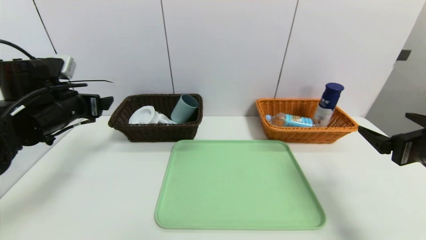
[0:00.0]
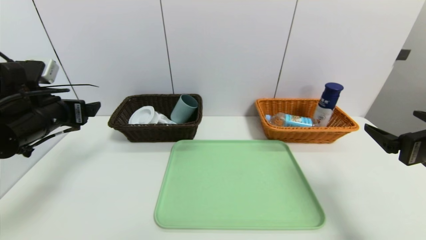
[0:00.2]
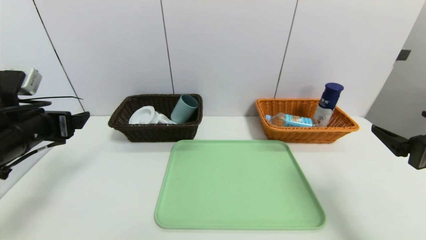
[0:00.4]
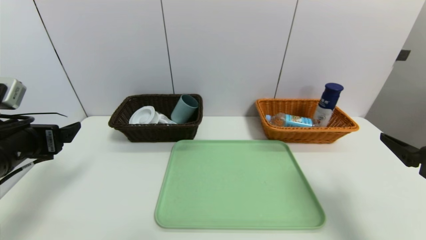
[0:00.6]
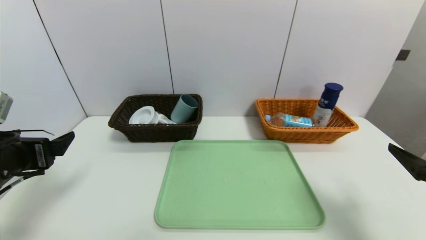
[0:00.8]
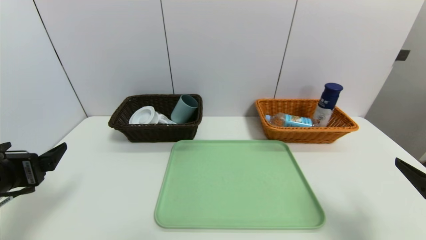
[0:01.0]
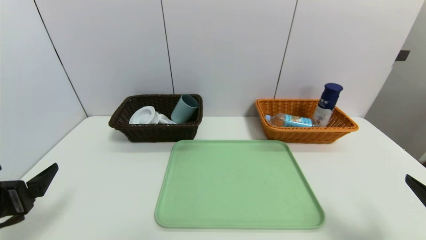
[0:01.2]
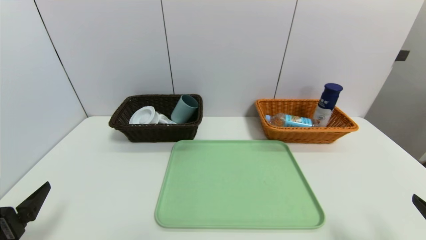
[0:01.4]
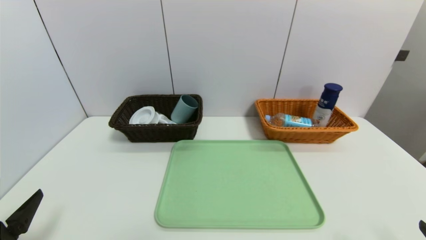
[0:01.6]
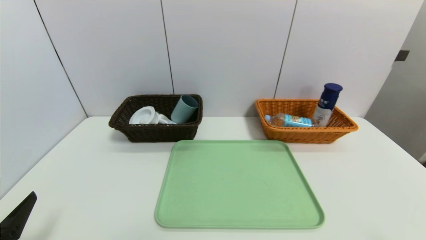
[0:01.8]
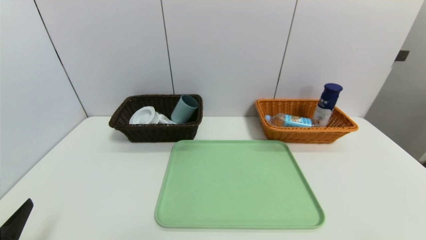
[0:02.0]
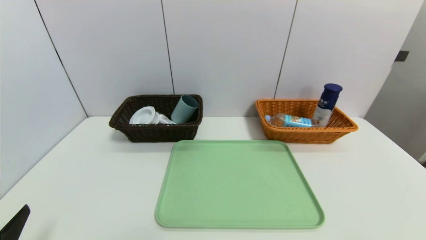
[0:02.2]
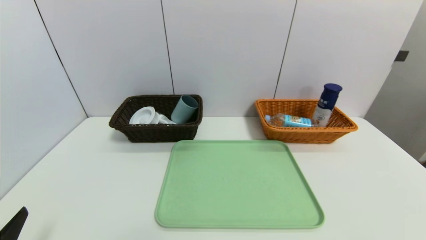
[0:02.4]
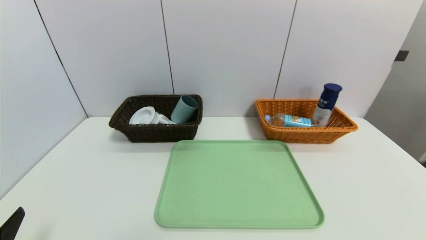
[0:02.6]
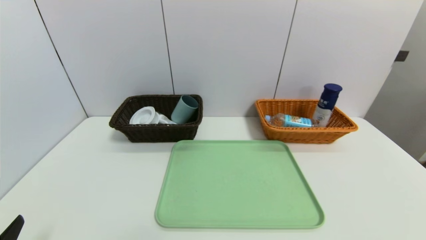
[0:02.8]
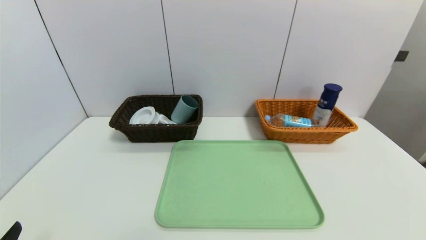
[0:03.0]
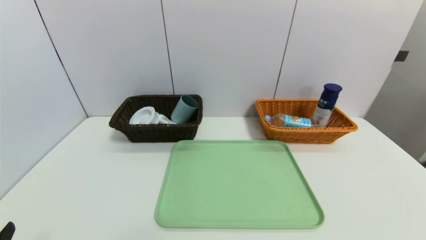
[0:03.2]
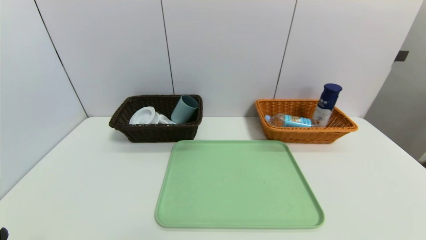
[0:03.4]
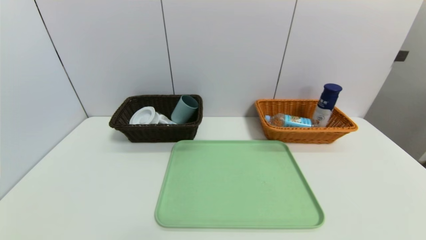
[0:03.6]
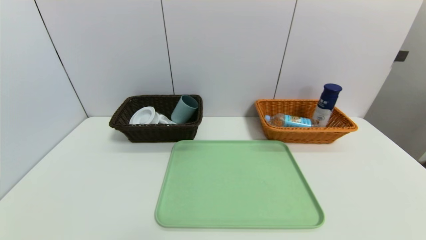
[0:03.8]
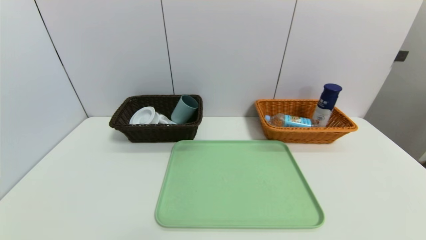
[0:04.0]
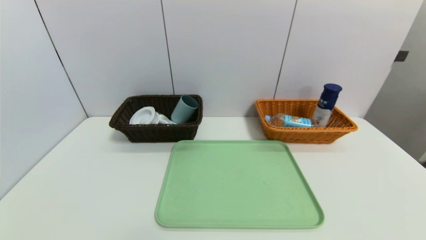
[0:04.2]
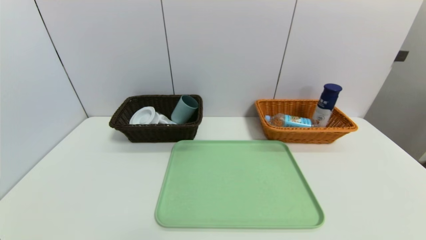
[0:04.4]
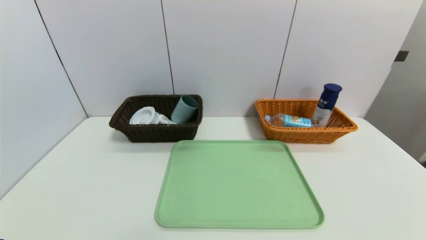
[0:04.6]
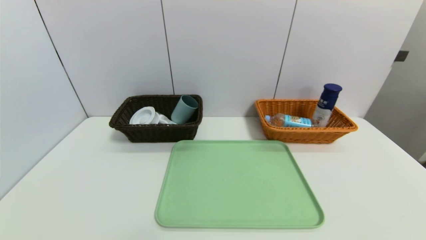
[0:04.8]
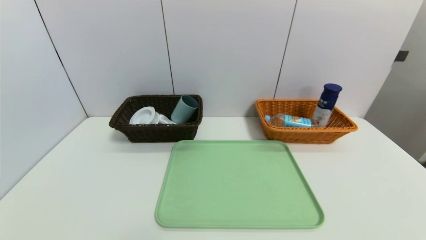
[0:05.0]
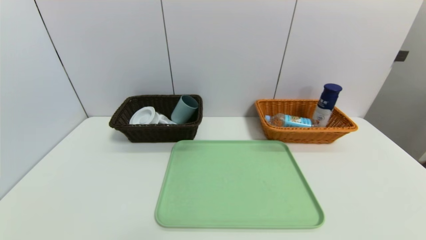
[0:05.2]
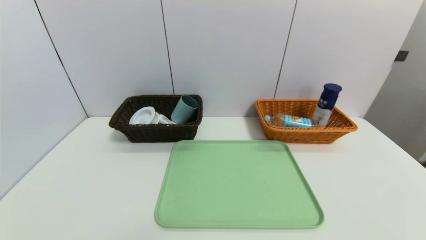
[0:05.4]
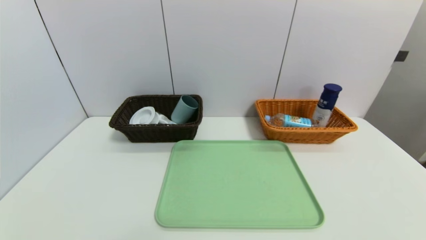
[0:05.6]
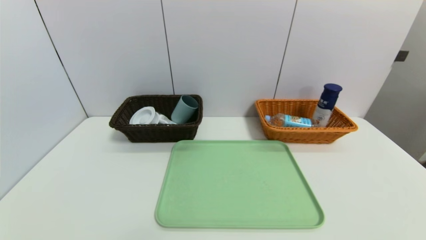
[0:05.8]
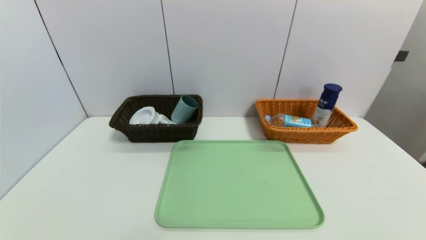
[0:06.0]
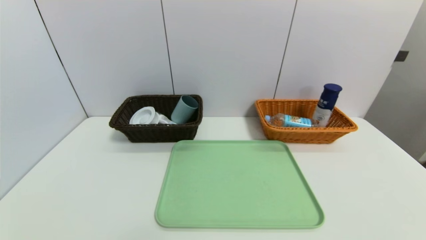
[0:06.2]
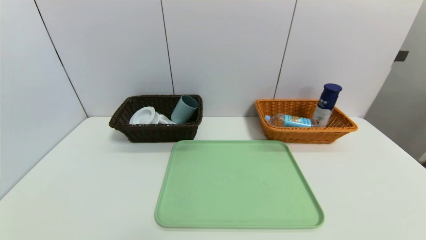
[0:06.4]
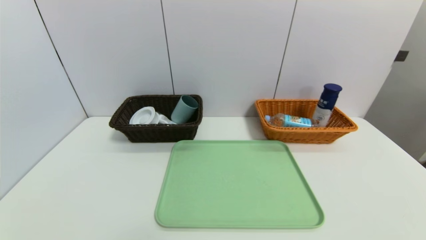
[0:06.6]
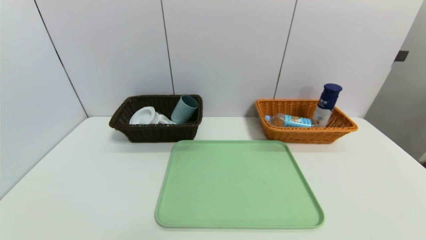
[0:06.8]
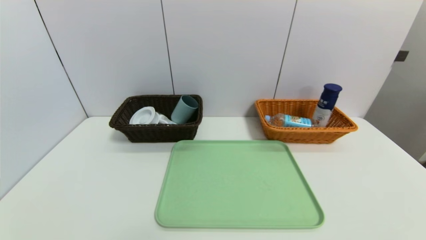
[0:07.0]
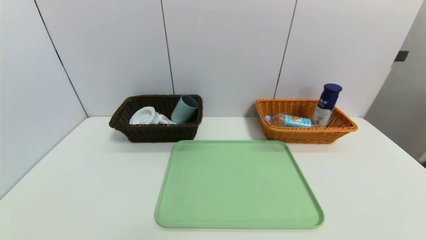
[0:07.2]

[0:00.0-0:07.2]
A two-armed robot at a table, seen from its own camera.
Task of the whole recording: place the food in the right basket with the right gripper, and place the non food items in the left basket with the left gripper.
0:00.0 to 0:01.4: The left gripper shifts about 20 cm backward. The right gripper is displaced backward and downward by some 15 cm.
0:01.4 to 0:02.8: The left gripper goes approximately 5 cm backward.
